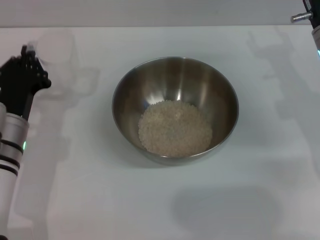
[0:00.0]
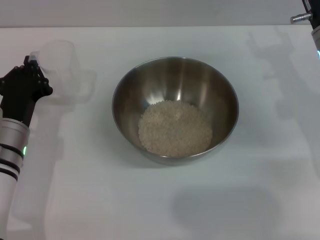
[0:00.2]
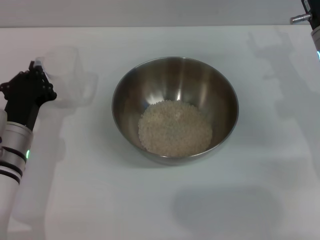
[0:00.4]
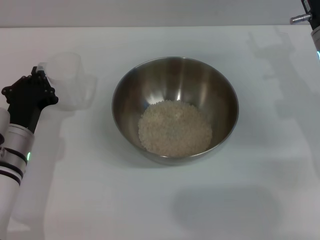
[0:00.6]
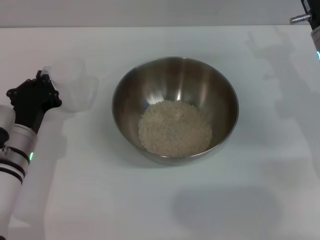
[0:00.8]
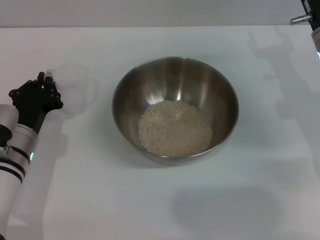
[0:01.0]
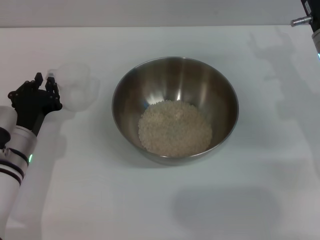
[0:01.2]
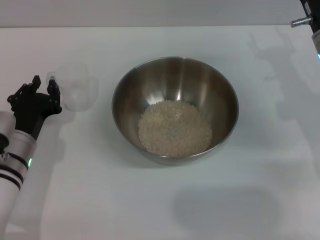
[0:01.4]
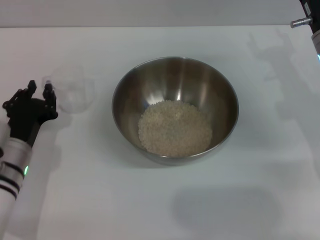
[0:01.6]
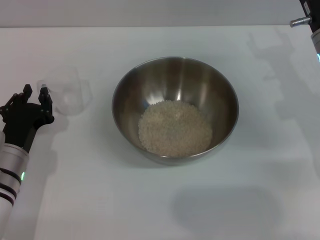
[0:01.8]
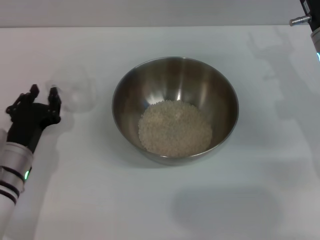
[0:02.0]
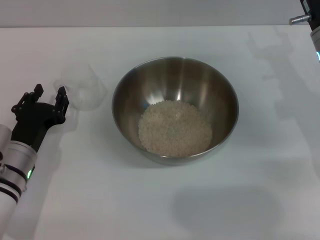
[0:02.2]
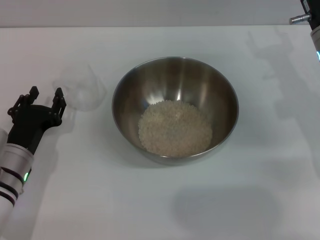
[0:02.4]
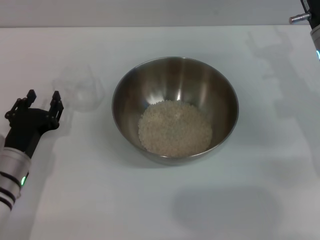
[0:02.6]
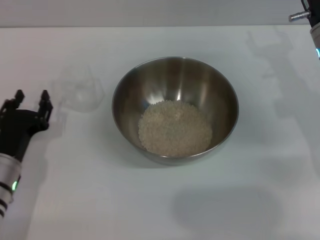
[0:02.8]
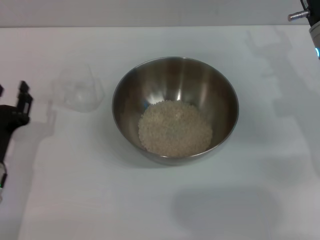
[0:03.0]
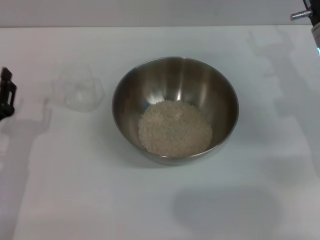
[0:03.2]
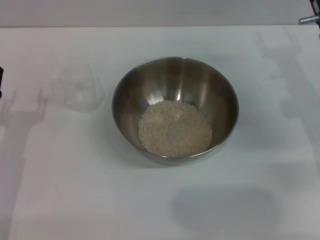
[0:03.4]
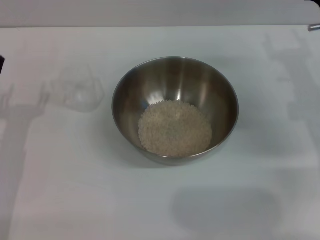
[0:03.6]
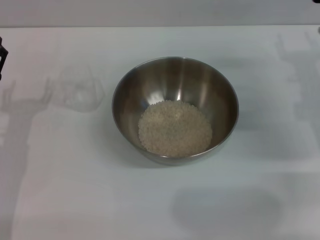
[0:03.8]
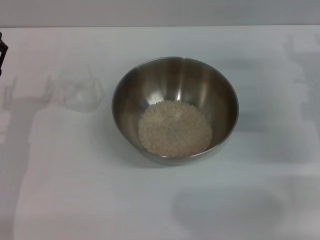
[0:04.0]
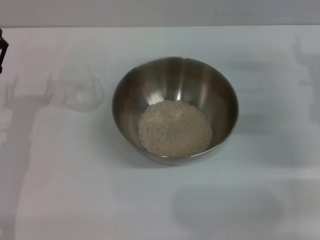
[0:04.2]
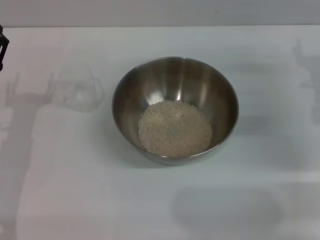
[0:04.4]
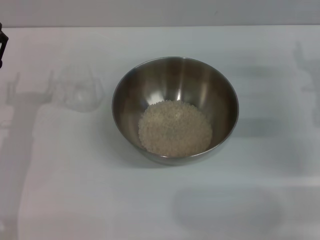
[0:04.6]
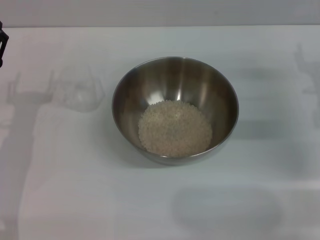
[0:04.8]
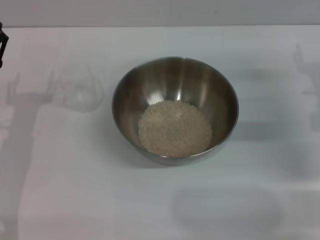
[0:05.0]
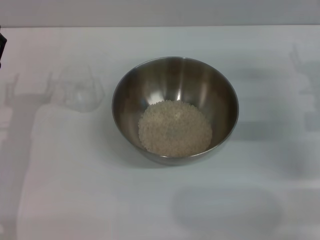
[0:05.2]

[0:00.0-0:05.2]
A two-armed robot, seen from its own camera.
Task of the whole recording: Place the bowl in the middle of the table with one hand and pour the rice from the grain cup into it with the other hand.
Step, 0:00.0 to 0:02.8: Place the cup on the table with the left gripper.
0:00.0 to 0:01.8: The left gripper opens its fingers.
0:01.8 to 0:03.4: The left gripper changes place by about 5 cm.
0:03.4 to 0:05.2: The right gripper changes place by roughly 5 cm.
